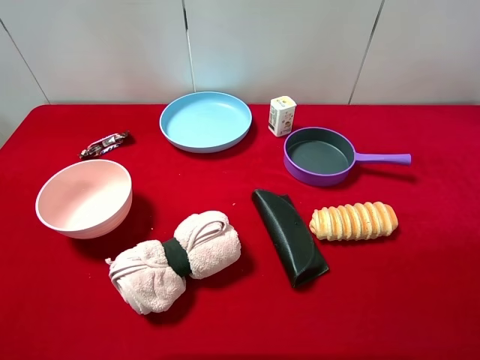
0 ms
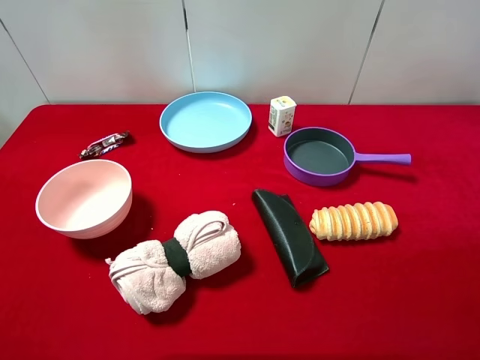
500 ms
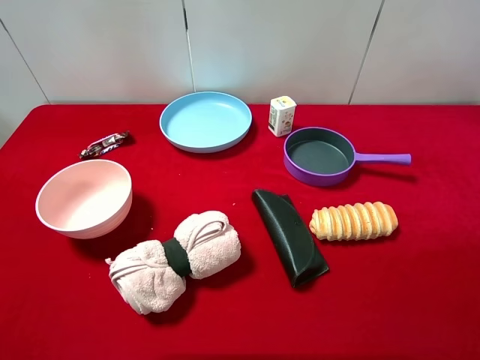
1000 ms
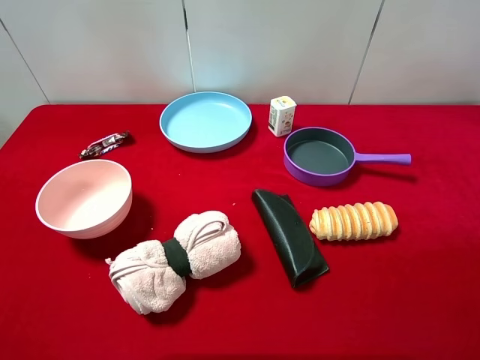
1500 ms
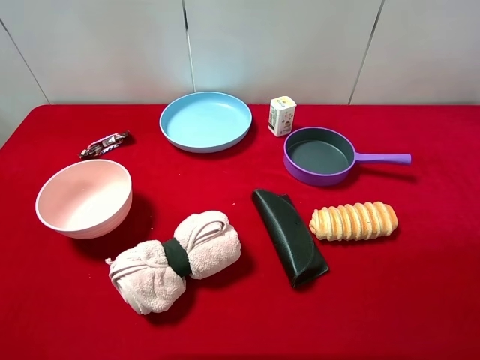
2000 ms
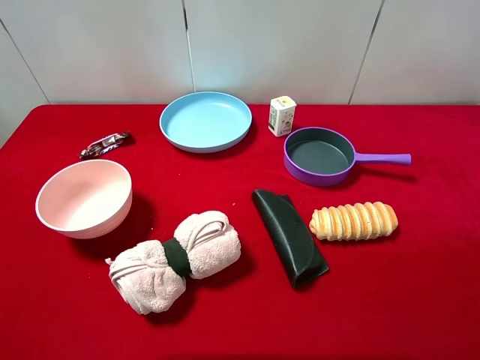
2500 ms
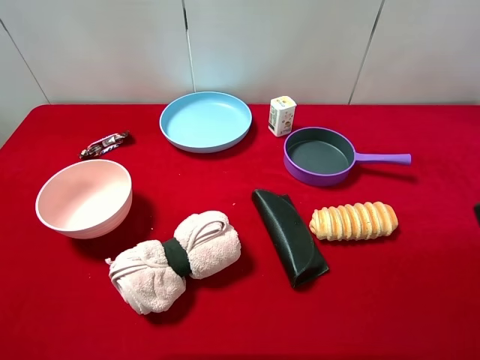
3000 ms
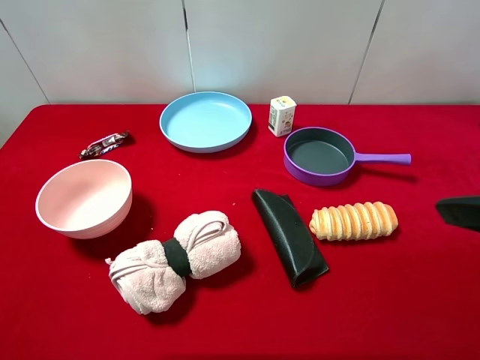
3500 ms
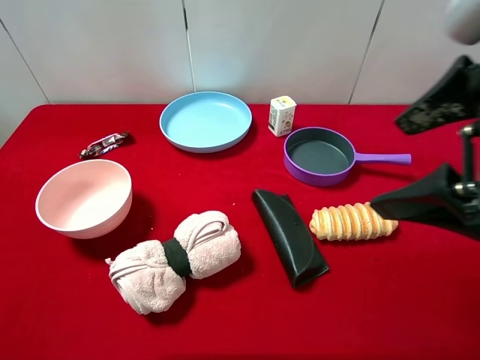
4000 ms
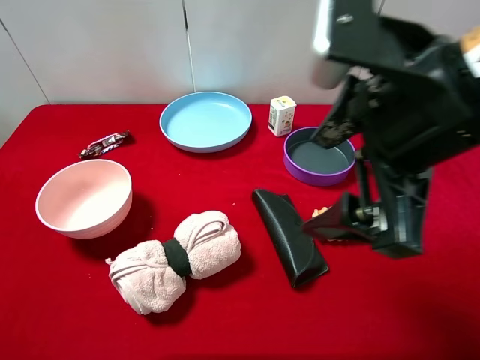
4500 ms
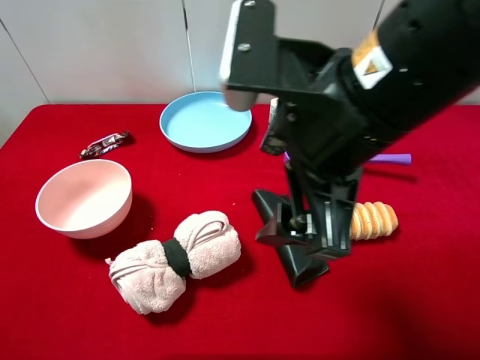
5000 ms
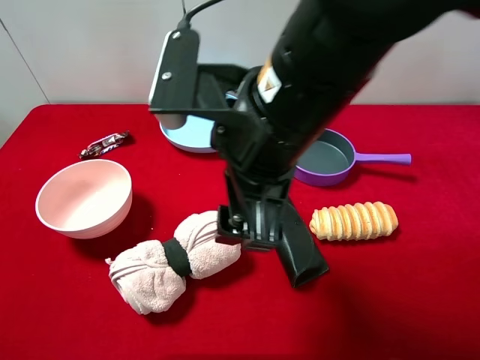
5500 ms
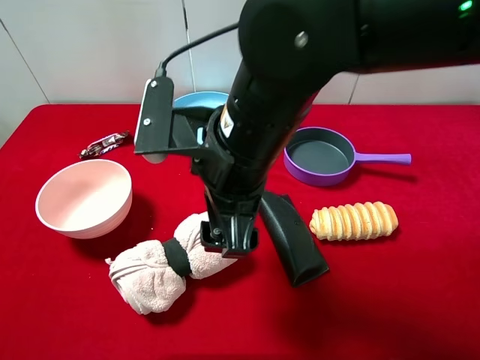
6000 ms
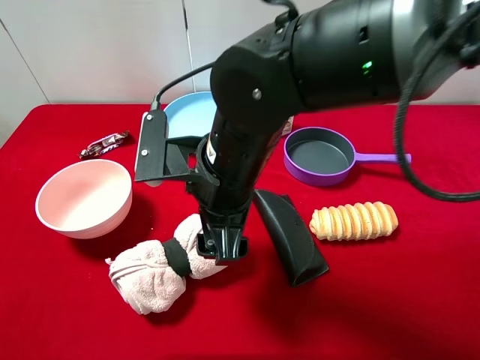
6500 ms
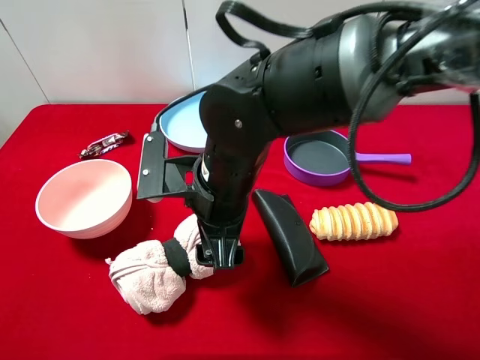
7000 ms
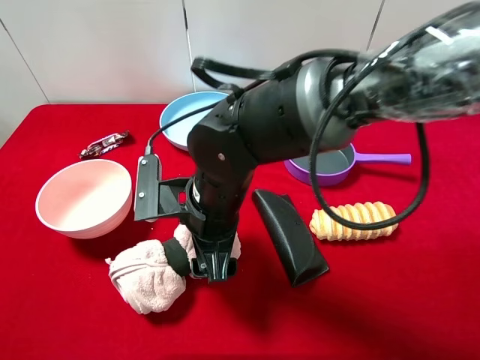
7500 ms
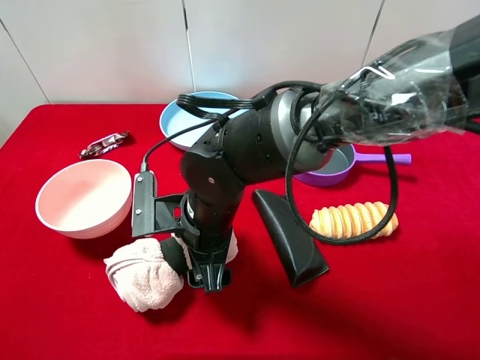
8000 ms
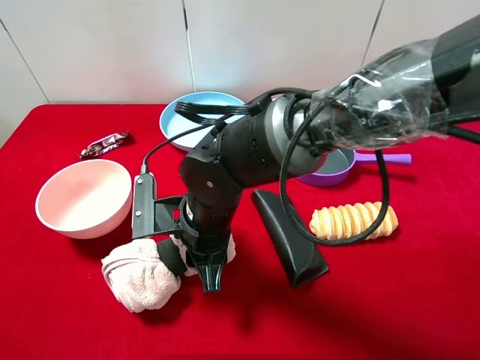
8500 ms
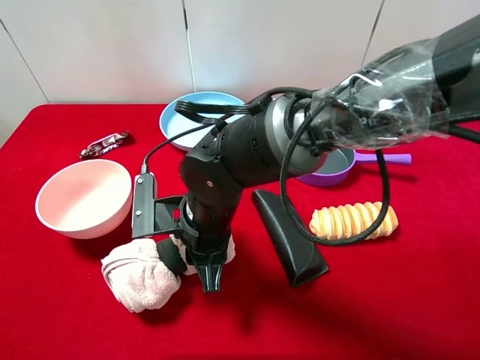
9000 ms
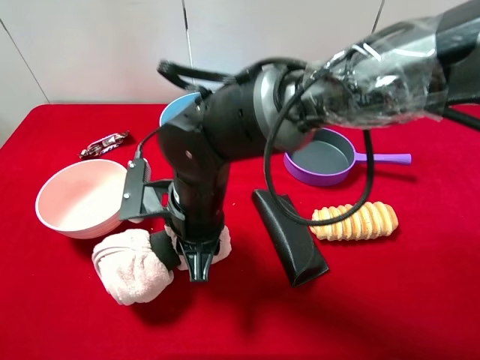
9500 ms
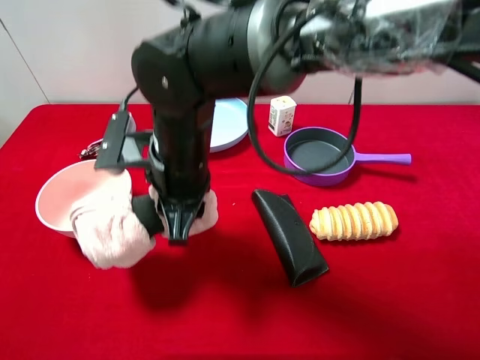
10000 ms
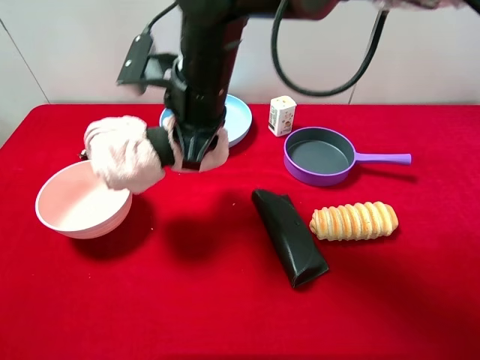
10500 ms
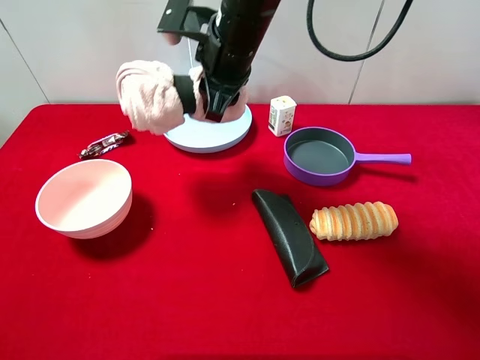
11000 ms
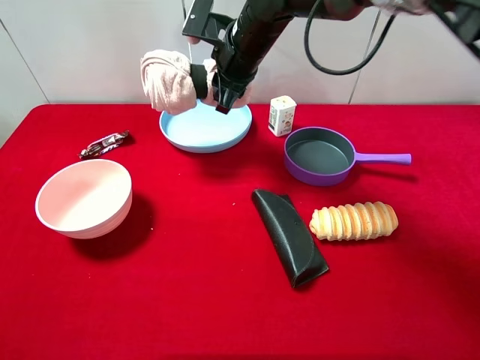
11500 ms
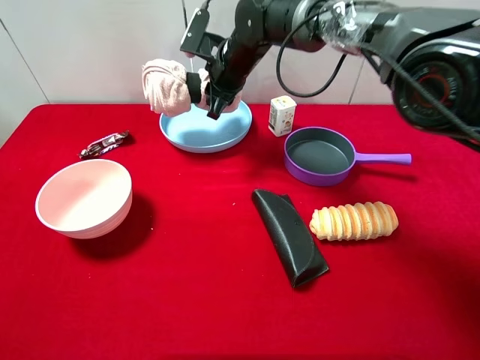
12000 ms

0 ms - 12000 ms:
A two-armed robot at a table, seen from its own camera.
Task of the whole recording: pick up an item with a gripper and place it in a random container on the desktop.
0 ms - 2000 ms: The two grippers keep their place.
2000 ms - 4000 ms: The right gripper is displaced forward and to the left by about 15 cm.
4000 ms - 6000 ms: The right gripper shifts some 20 cm to the left and downward.
6000 ms - 8000 ms: The right gripper goes roughly 10 cm downward.
8000 ms - 10000 ms: The right gripper shifts some 10 cm upward, and closes.
10000 ms - 12000 ms: The right gripper is displaced forward by some 20 cm.

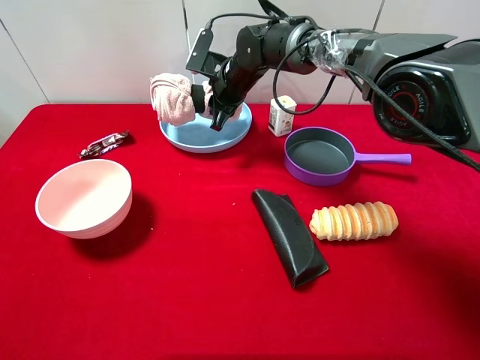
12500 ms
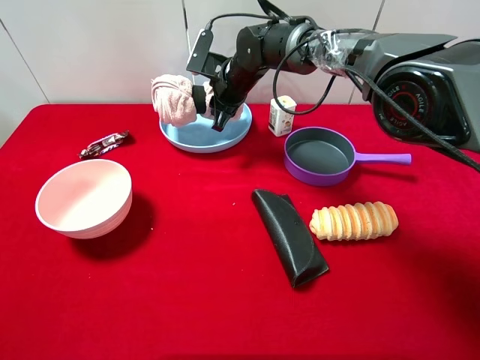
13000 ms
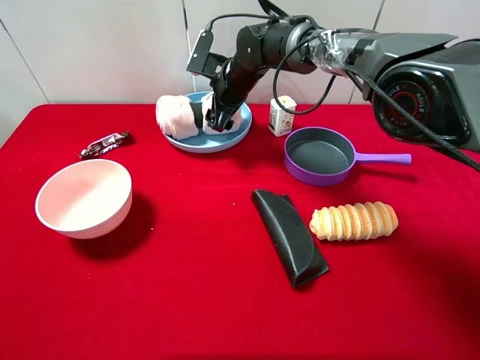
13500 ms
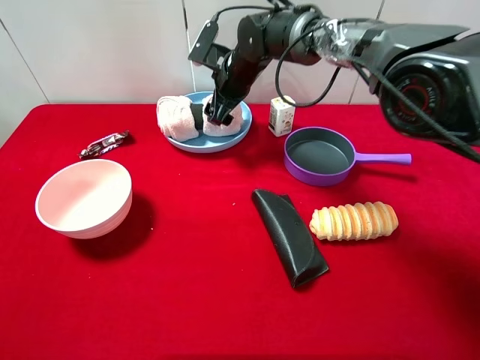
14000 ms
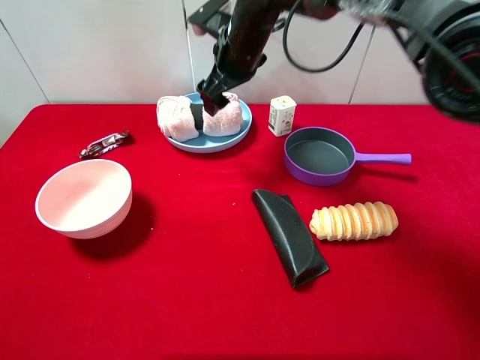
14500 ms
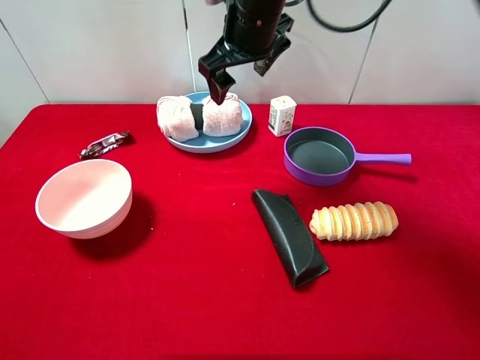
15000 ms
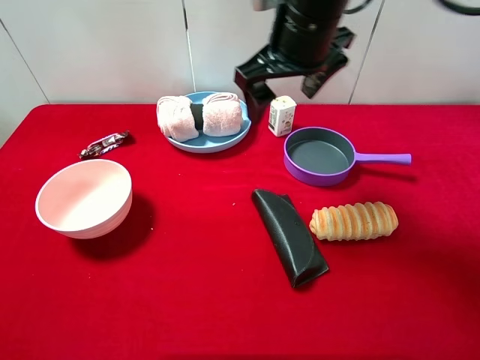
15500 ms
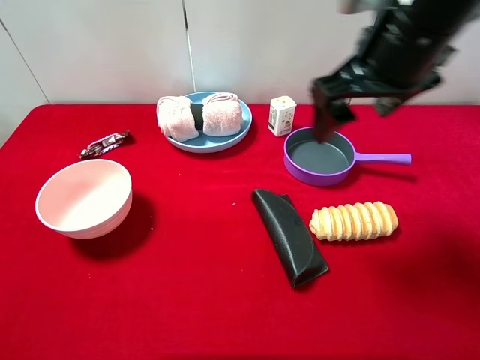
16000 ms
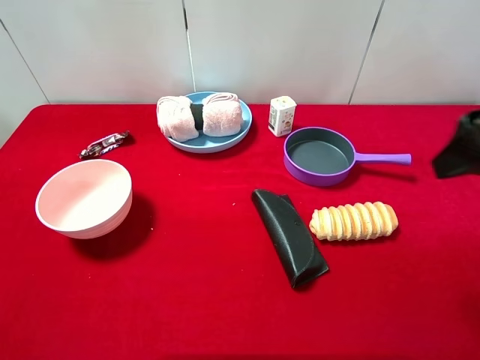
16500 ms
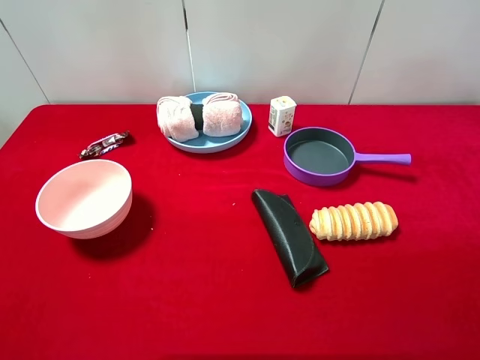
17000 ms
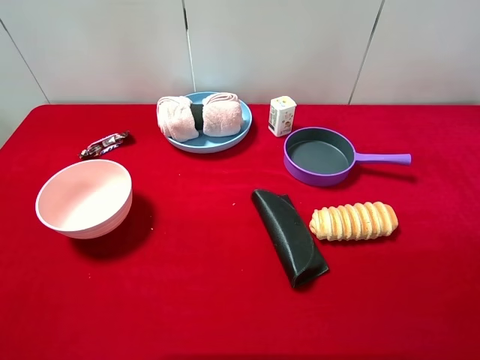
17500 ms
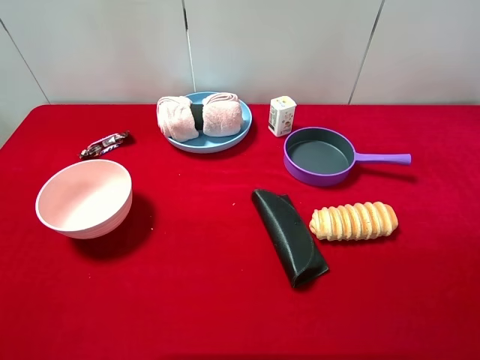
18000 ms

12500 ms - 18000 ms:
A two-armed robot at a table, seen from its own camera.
Task of the whole recording: pick up an item with a gripper and place it in a random container on the desktop.
12500 ms - 14500 ms: The right gripper shifts approximately 10 cm upward, and opens up.
14500 ms - 16000 ms: The right gripper moves backward, to the right and upward, approximately 25 cm.
16000 ms - 18000 ms: The right gripper heads backward and to the right, covering roughly 30 cm.

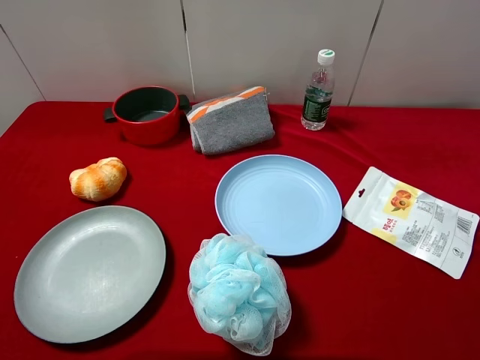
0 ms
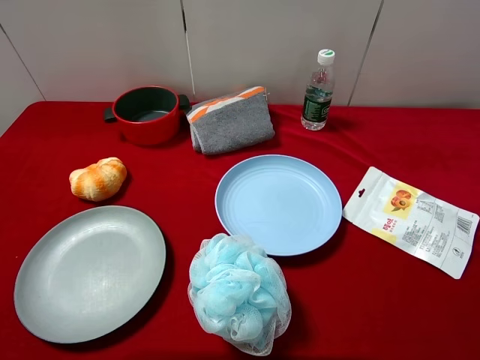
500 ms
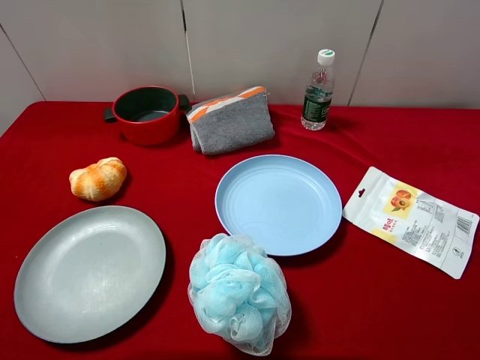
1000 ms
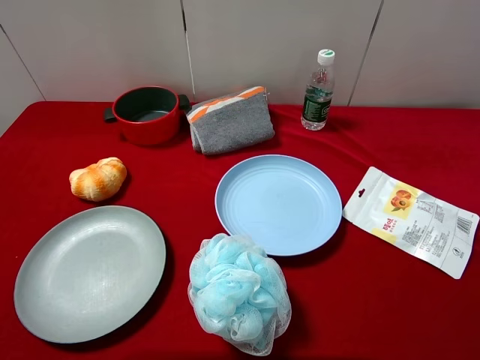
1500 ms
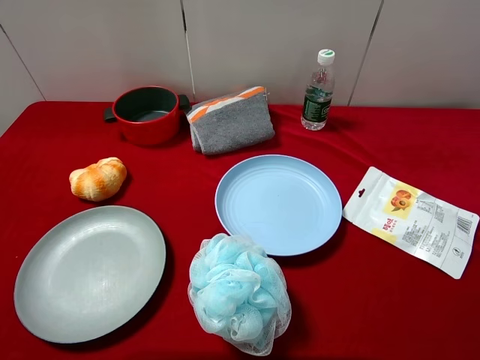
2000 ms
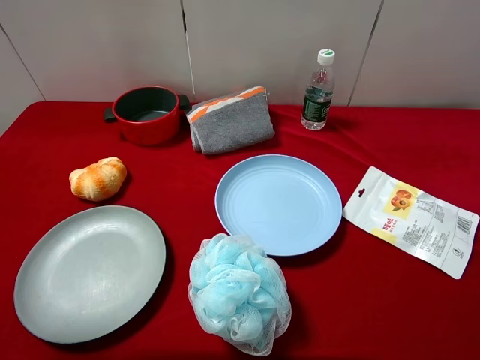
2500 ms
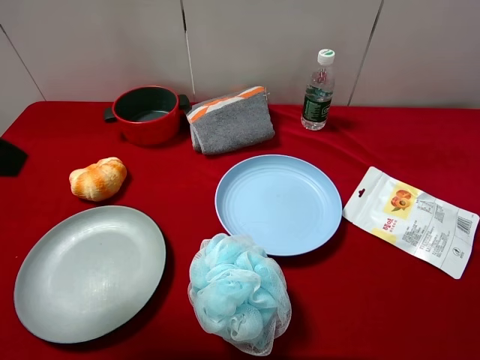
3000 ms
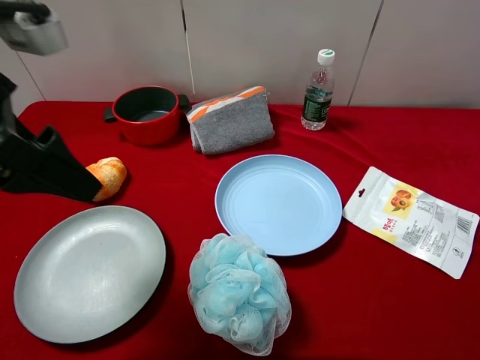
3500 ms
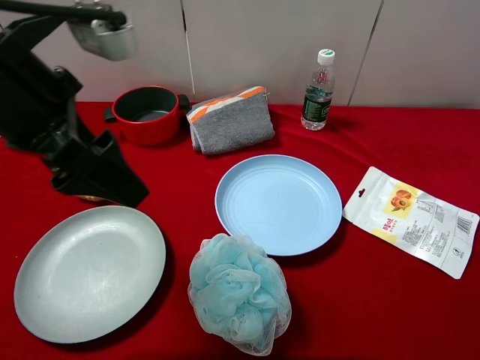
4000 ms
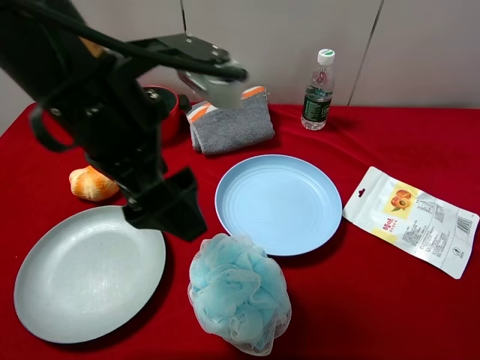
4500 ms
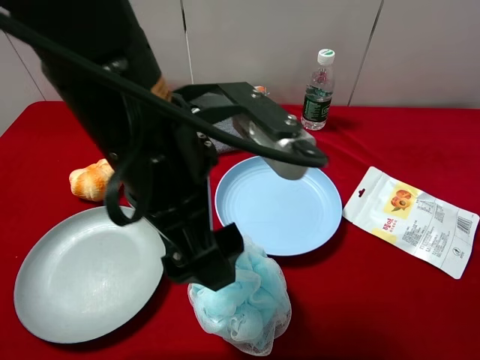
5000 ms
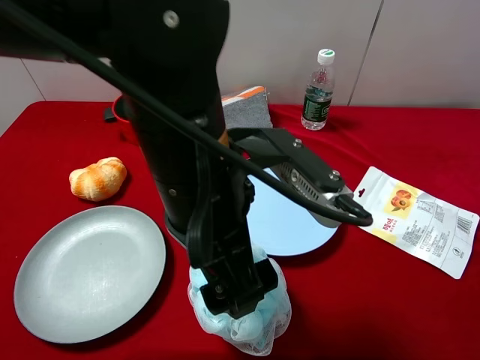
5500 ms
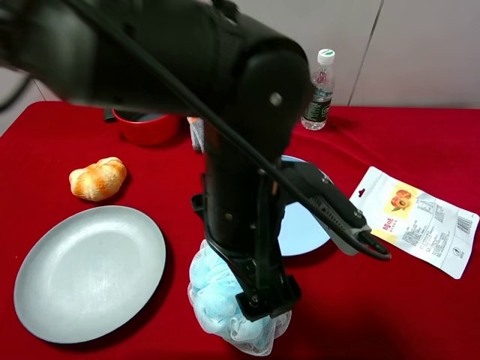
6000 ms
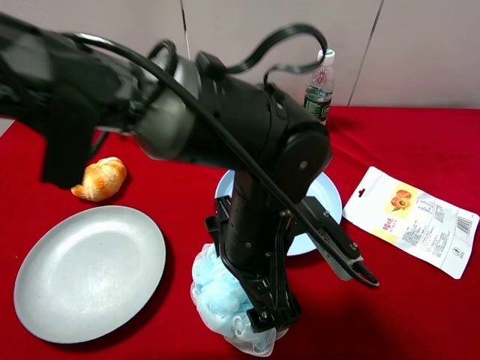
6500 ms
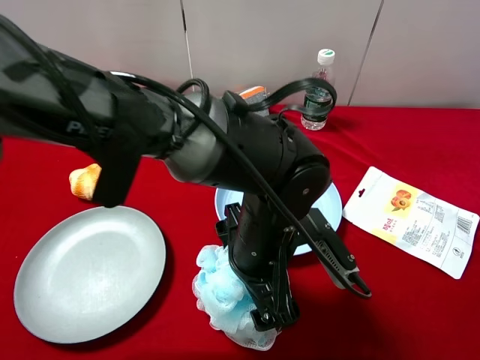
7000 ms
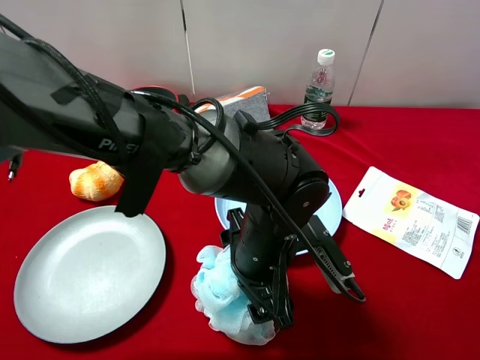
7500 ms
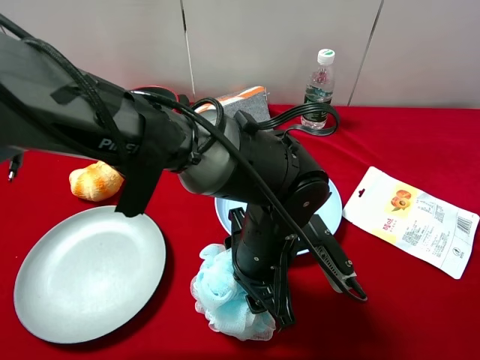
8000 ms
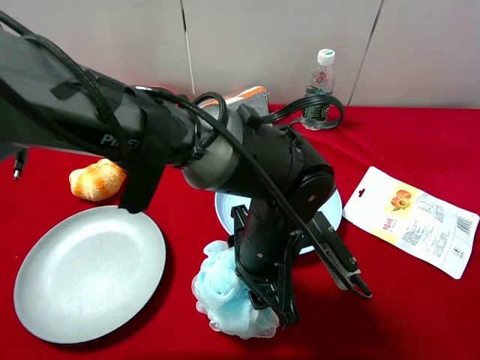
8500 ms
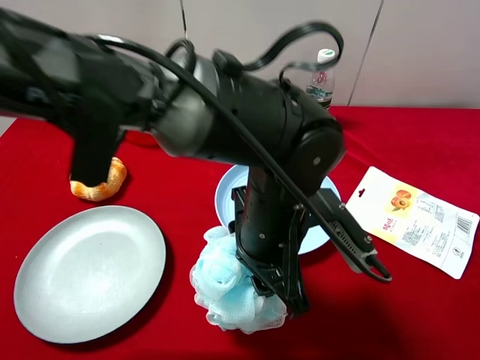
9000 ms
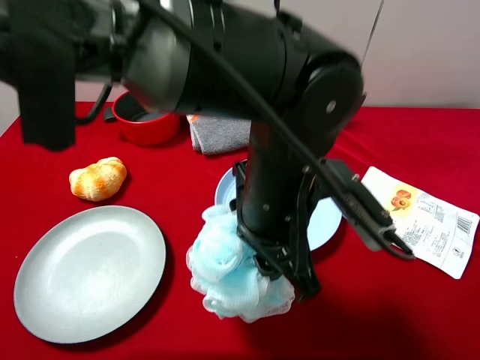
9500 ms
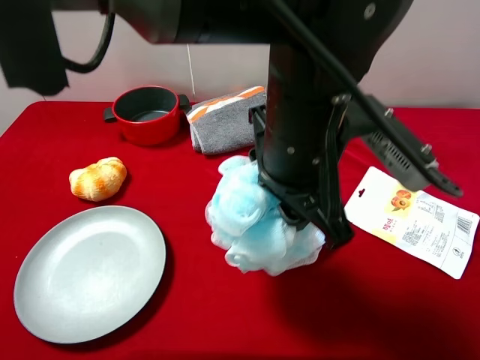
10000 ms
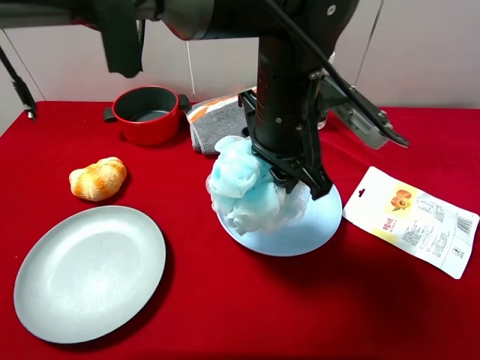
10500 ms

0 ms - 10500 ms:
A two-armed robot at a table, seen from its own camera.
Task of the whole recording: pick up an item with a gripper and place it in a random container on the desktop.
2000 ms - 4000 ms: The left gripper is displaced forward and to the right by about 25 cm.
4000 ms - 6500 ms: The left gripper heads to the right and downward, covering roughly 25 cm.
6500 ms - 8500 ms: The left gripper closes its fingers.
8500 ms - 10500 ms: The left gripper goes roughly 15 cm upward and forward.
